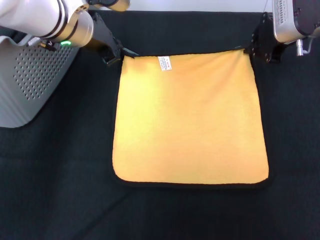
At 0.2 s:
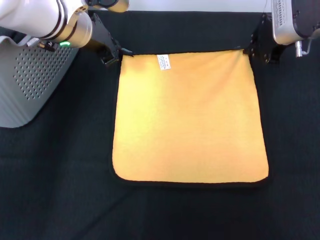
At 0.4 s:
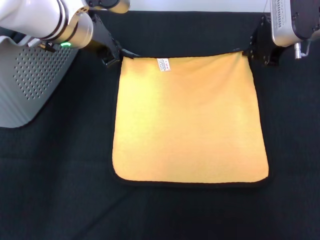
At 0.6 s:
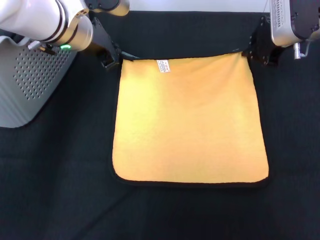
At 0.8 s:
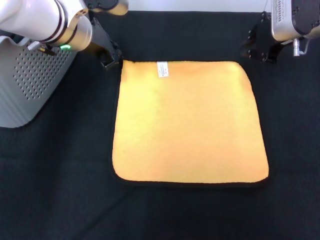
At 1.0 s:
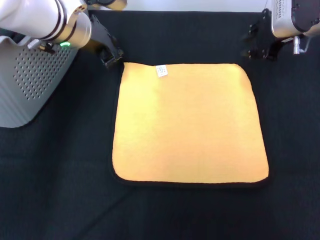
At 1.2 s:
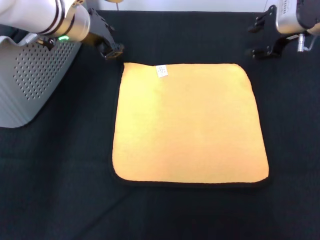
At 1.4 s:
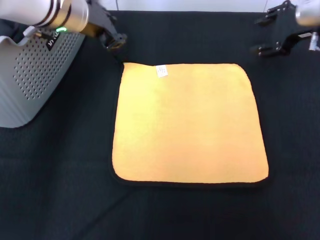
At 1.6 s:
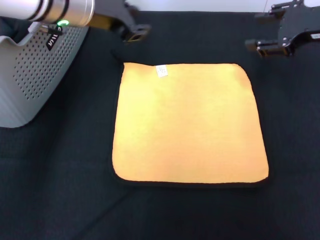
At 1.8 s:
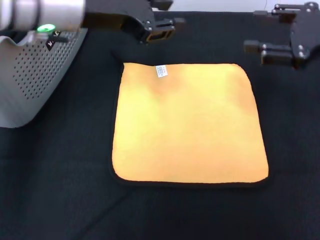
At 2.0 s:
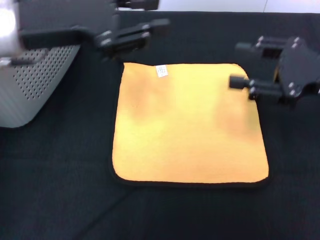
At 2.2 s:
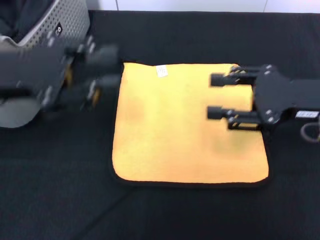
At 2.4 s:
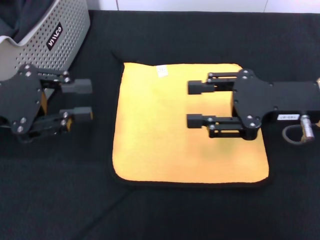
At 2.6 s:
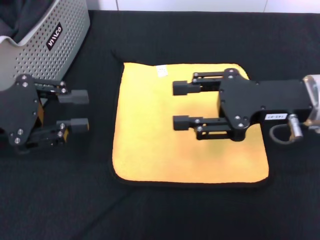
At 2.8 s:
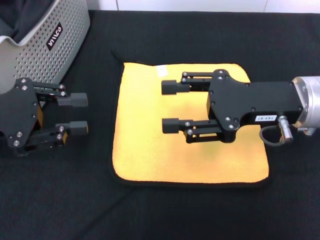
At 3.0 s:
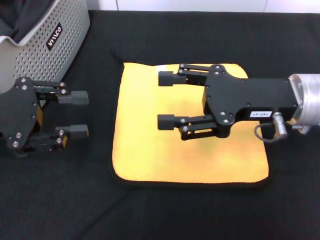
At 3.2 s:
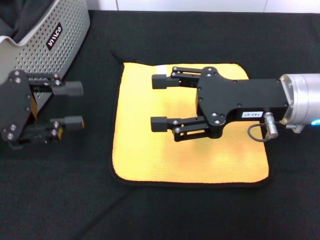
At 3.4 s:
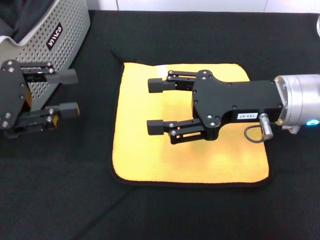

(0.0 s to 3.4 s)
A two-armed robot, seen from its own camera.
Task of the whole recording: pick up the towel from the storage box and lay it flat on the black tablecloth.
0.0 s - 1.6 s: The right gripper is displaced to the right by about 5 cm, and opens, while the left gripper ends up some 5 cm from where it was, and opens up.
1.6 s - 3.4 s: The left gripper moves to the left and backward, some 20 cm. Meanwhile the right gripper moves to the left, backward and downward, some 15 cm.

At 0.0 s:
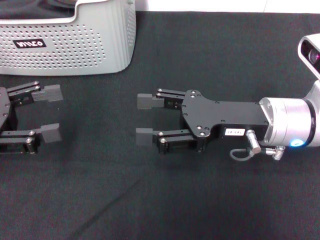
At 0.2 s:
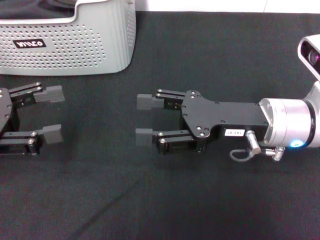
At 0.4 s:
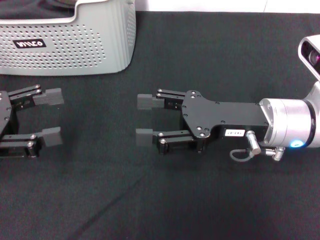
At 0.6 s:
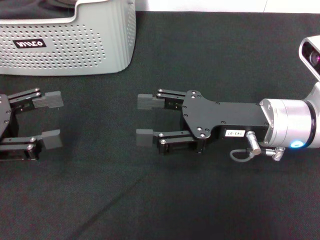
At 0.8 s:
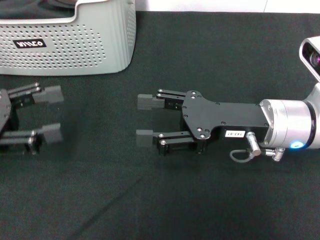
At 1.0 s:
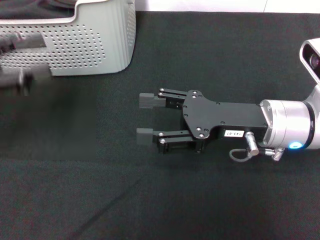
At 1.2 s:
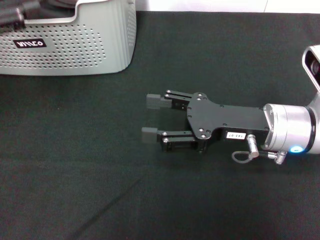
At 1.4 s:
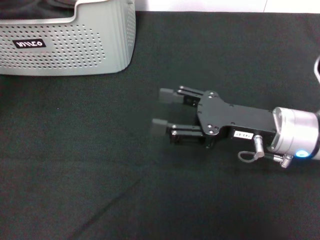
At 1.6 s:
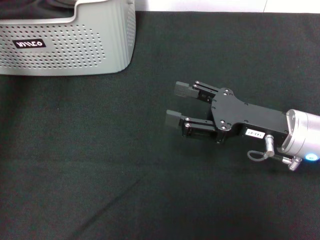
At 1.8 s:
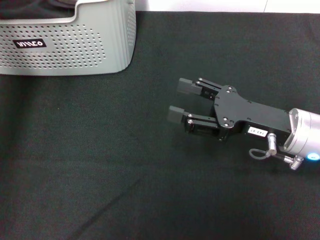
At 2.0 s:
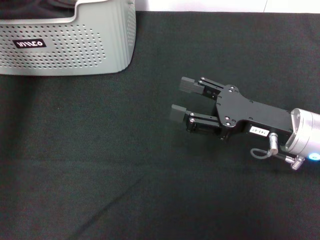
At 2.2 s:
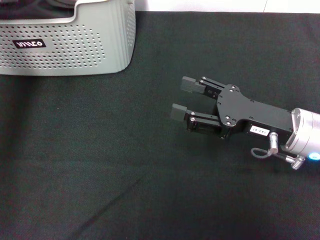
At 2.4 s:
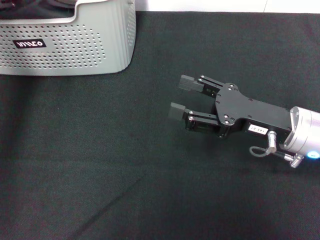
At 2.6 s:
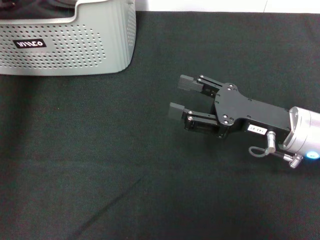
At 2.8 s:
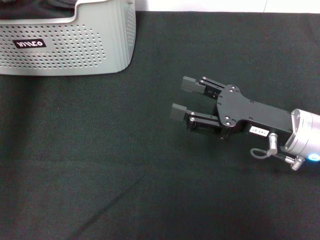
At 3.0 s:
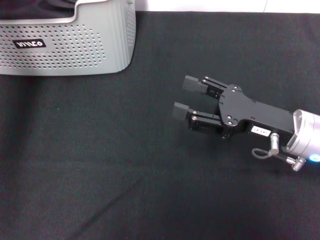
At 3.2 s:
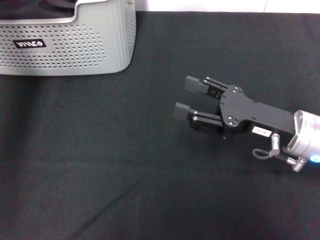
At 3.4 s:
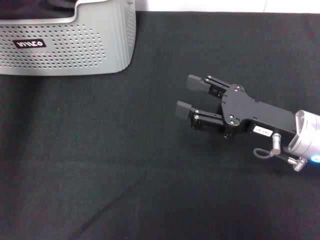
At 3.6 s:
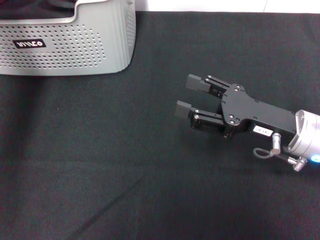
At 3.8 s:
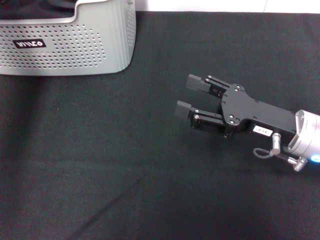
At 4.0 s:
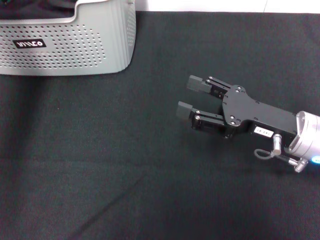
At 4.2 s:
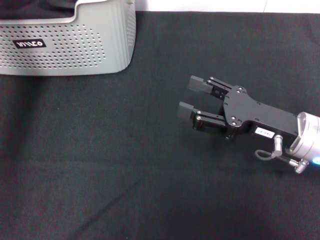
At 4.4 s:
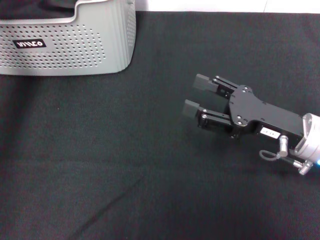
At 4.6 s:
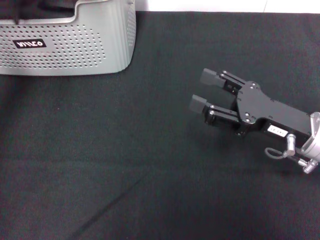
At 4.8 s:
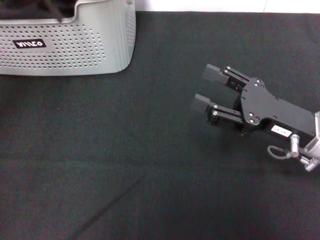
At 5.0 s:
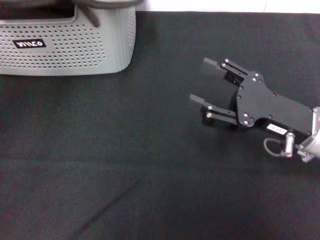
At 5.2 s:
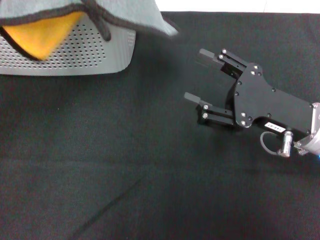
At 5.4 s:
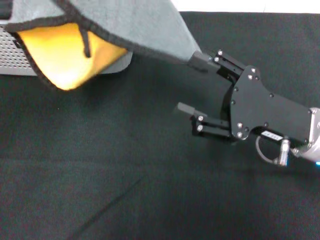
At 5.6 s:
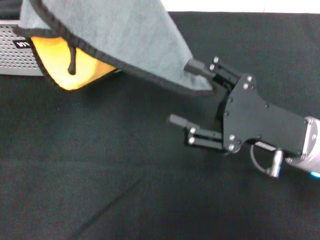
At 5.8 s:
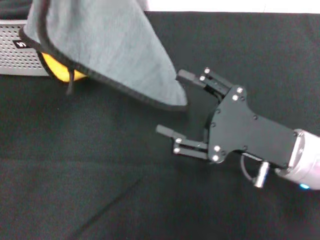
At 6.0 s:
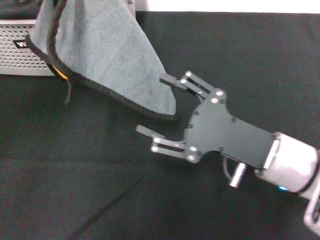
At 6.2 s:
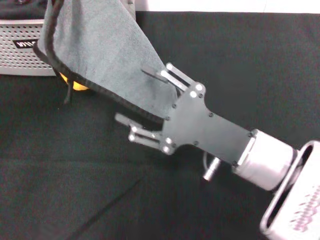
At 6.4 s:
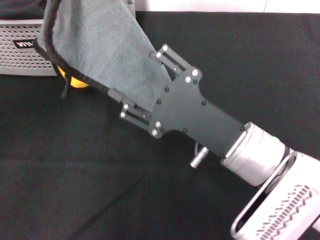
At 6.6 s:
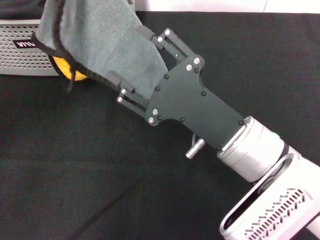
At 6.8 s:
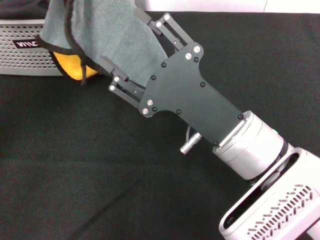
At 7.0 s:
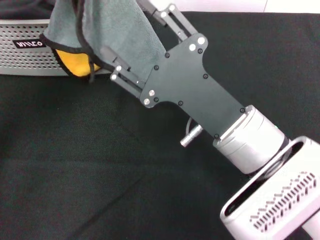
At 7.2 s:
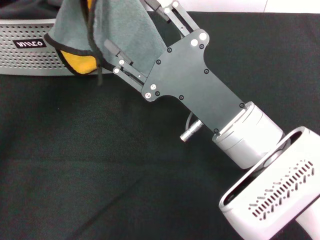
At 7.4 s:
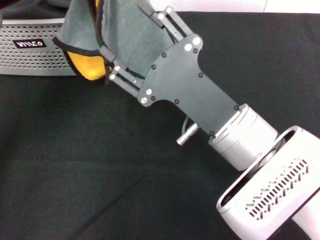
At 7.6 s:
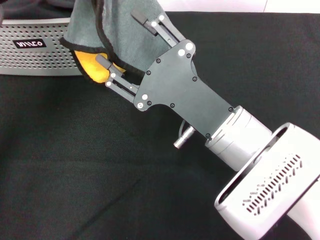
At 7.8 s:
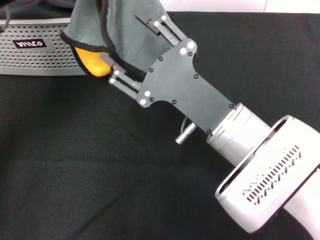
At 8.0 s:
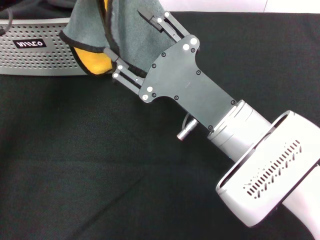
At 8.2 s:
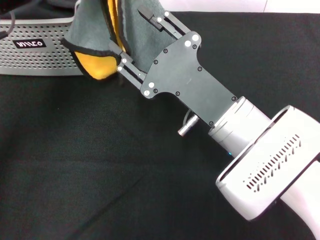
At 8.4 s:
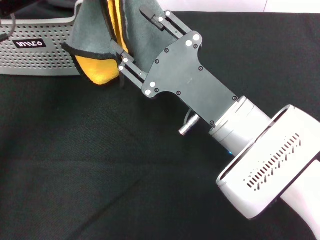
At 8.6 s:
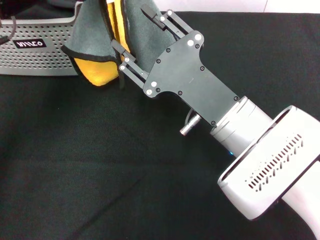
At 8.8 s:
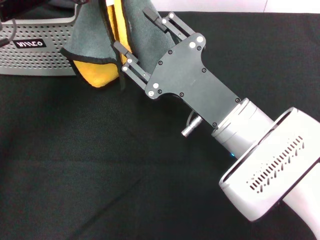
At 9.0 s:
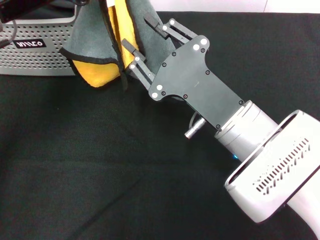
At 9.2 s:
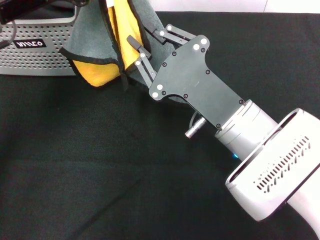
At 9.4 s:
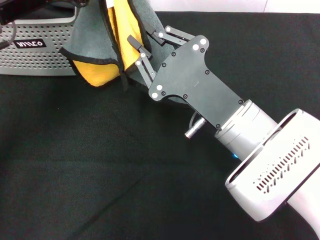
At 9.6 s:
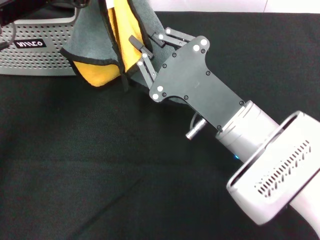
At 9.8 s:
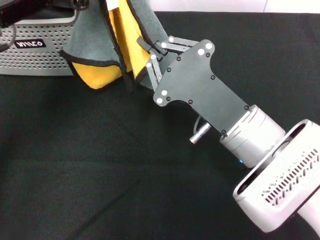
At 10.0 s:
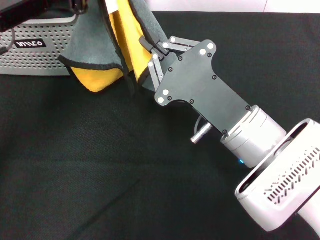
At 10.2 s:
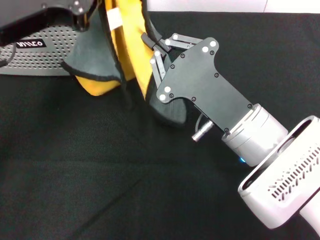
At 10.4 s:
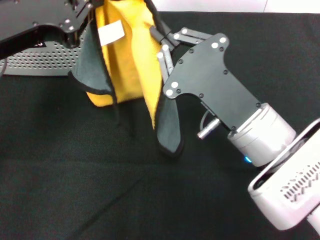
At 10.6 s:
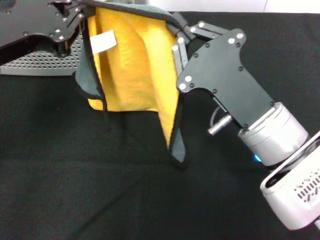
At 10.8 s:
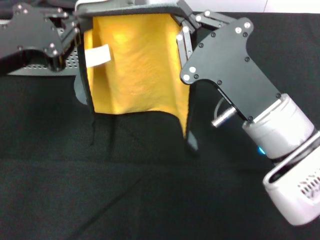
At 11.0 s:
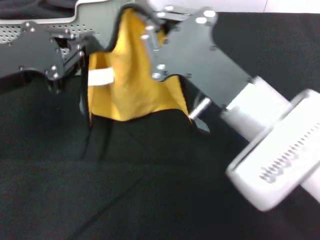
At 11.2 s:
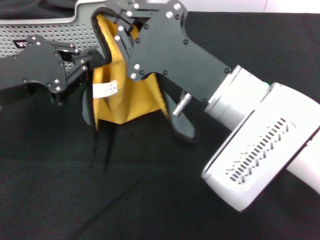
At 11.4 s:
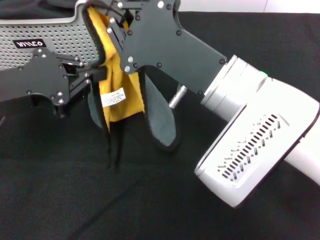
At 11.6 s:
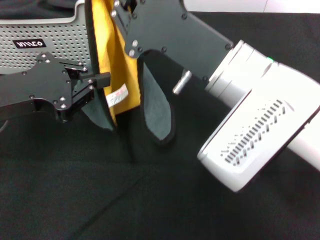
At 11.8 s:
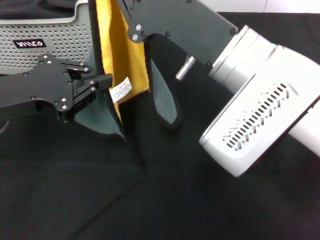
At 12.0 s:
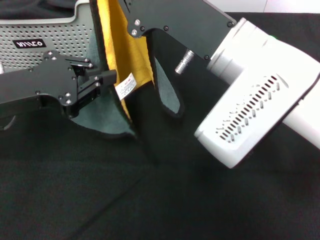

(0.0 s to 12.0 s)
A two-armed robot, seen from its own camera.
Task of the whole recording: pick up the towel from the storage box and lay it flat on the black tablecloth.
Step, 0.0 s - 4.0 s: Pick up a towel with the left gripper.
Step, 4.2 s - 9.8 s: Spread the towel flat with the left gripper.
0.0 s - 1.6 s: The left gripper travels upward and forward by about 15 cm.
1.6 s - 3.0 s: The left gripper moves forward, some 5 cm.
3.0 s - 4.4 s: The left gripper closes.
4.4 s - 6.0 s: The left gripper goes roughly 10 cm backward, while the right gripper shifts by approximately 5 cm.
6.0 s - 7.6 s: The right gripper goes approximately 5 cm to the left, while the left gripper changes place by approximately 5 cm.
9.0 s - 10.4 s: The right gripper closes.
10.4 s - 12.0 s: The left gripper goes roughly 5 cm downward; the right gripper is displaced upward by about 10 cm.

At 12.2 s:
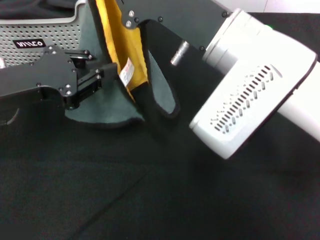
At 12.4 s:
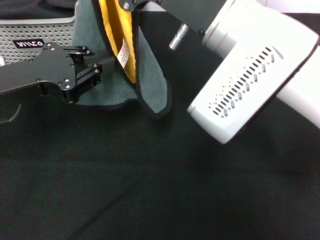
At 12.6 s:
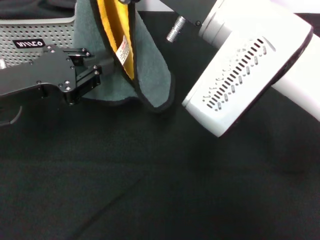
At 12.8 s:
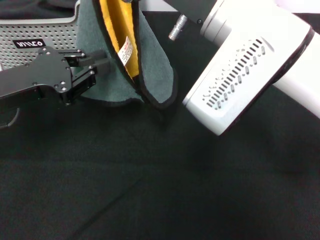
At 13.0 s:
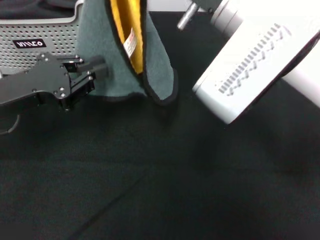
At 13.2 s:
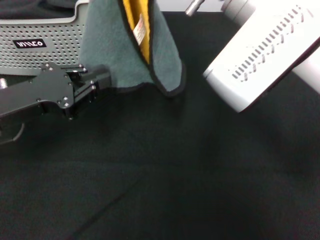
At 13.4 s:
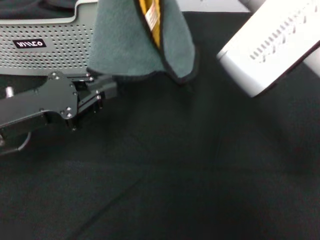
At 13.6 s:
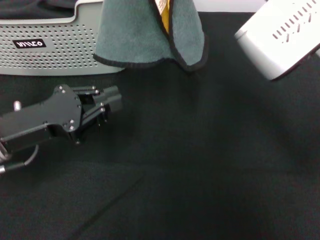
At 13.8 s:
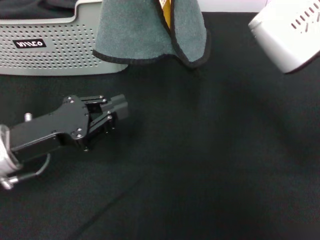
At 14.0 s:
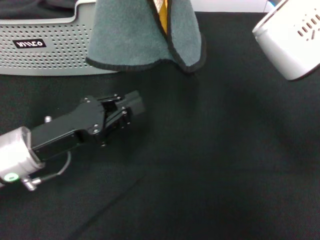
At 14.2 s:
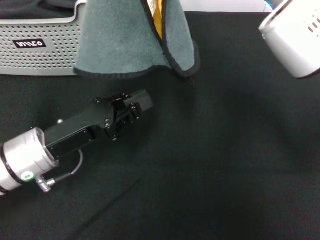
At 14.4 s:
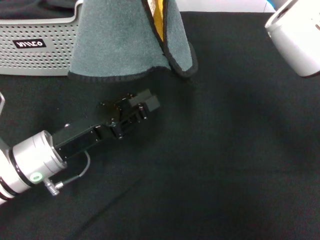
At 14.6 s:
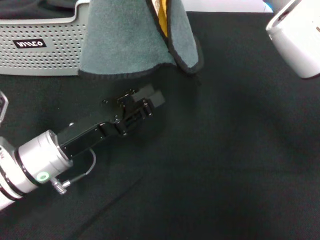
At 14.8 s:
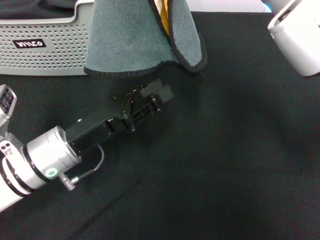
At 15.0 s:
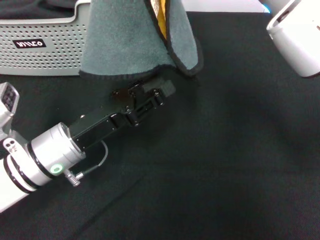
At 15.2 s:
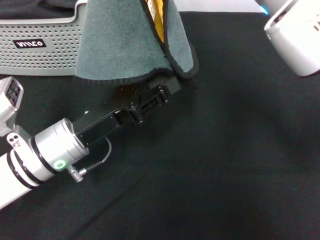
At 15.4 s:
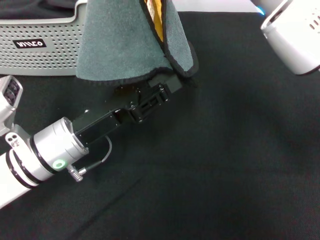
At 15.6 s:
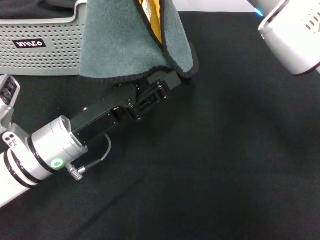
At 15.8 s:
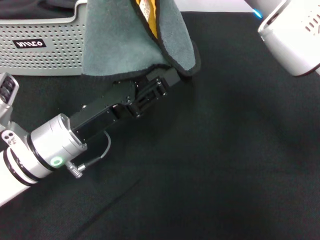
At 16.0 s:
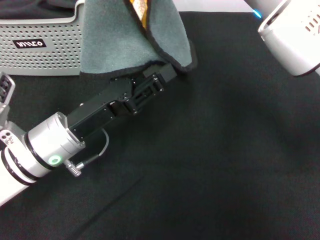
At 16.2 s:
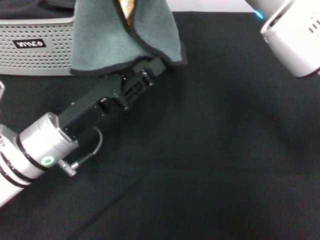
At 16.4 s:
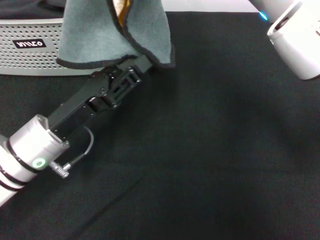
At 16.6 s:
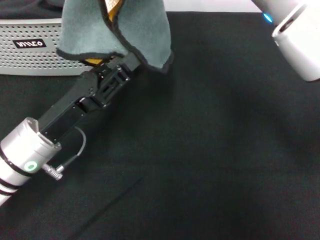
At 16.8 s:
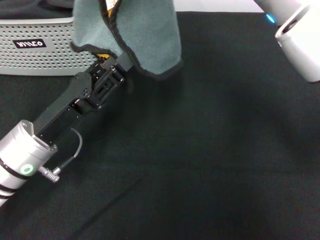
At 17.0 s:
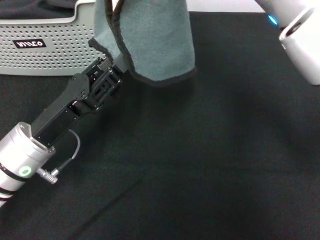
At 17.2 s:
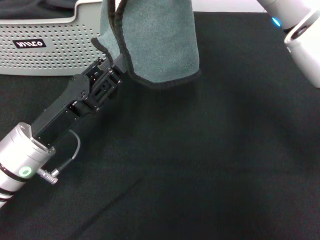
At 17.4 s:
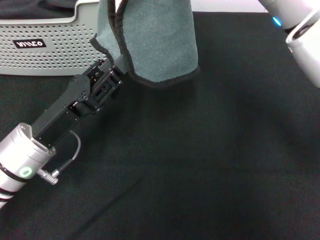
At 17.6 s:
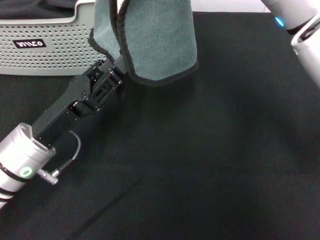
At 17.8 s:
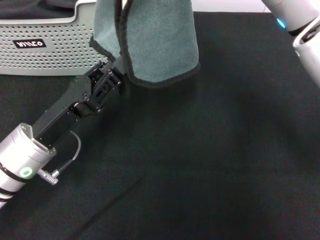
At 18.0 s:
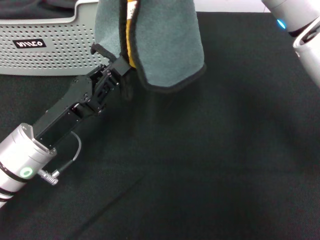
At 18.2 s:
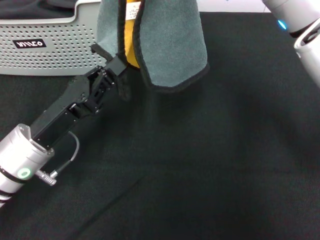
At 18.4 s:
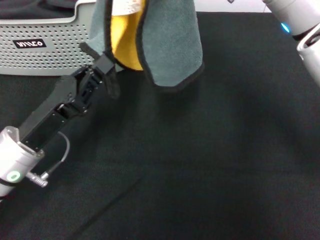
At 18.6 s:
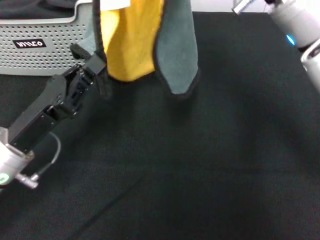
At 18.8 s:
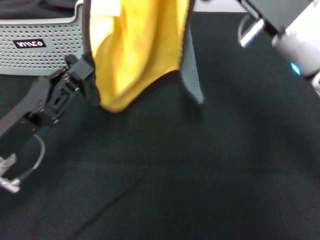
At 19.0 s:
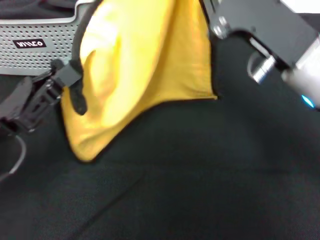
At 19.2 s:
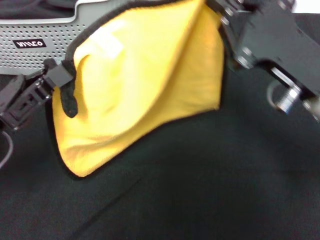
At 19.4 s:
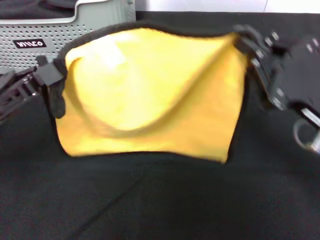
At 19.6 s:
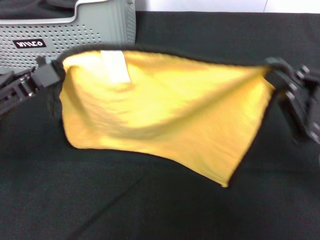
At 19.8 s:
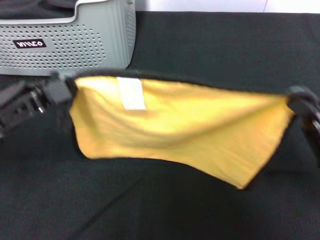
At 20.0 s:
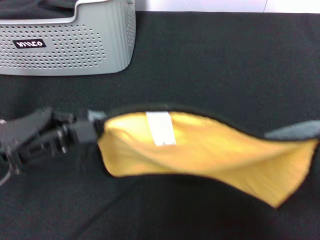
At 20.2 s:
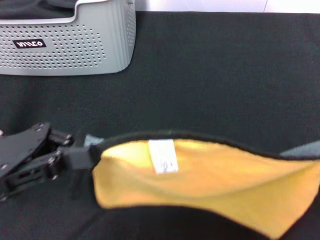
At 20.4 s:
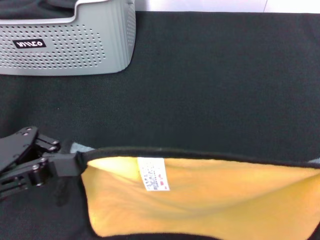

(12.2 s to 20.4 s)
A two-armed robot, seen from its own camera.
Task of the whole recording: pick up the towel from the storage box and lay it flat on the black tablecloth.
12.2 s - 13.8 s: The left gripper heads downward, covering approximately 5 cm. The right gripper moves upward, approximately 5 cm.
13.8 s - 15.4 s: The left gripper travels to the right by roughly 10 cm, and opens up.
17.2 s - 18.8 s: The left gripper closes its fingers.
18.8 s - 20.4 s: The left gripper heads upward, covering about 5 cm; the right gripper goes some 25 cm backward, to the right and downward.
